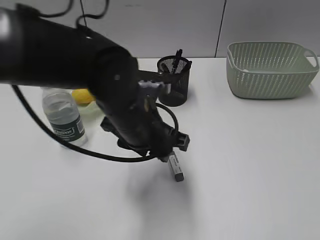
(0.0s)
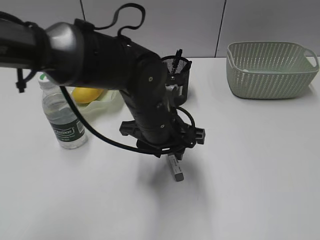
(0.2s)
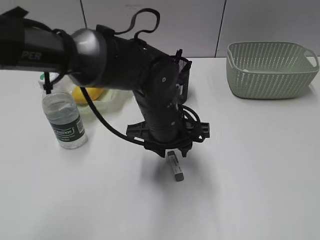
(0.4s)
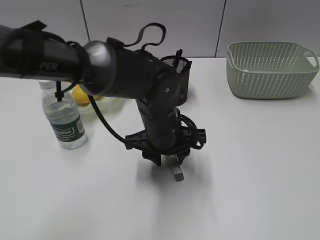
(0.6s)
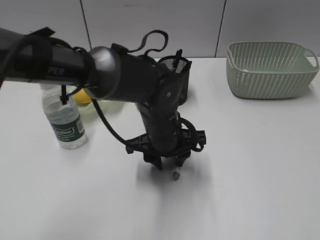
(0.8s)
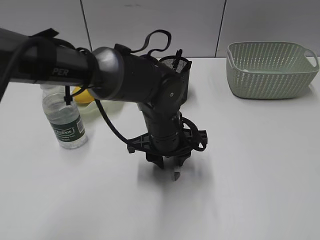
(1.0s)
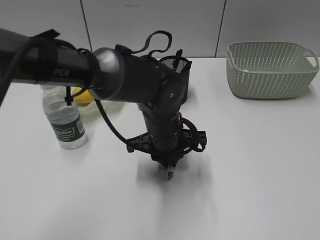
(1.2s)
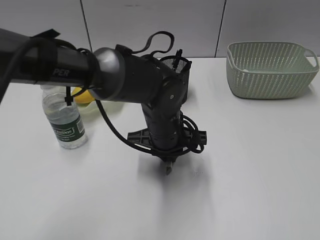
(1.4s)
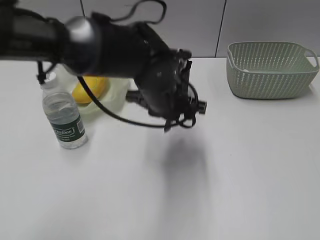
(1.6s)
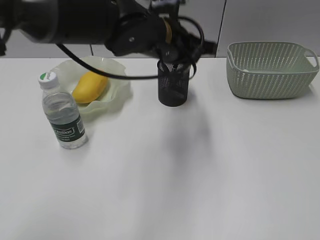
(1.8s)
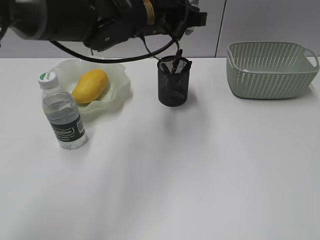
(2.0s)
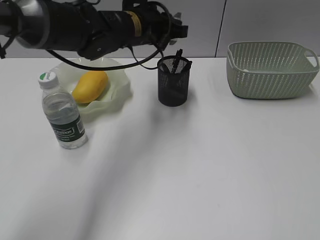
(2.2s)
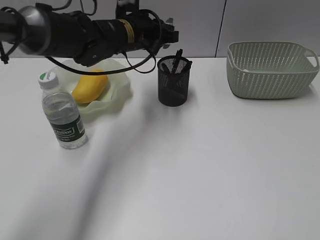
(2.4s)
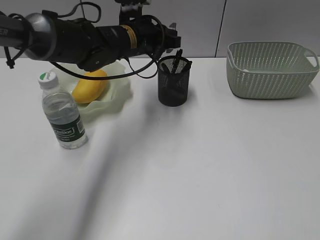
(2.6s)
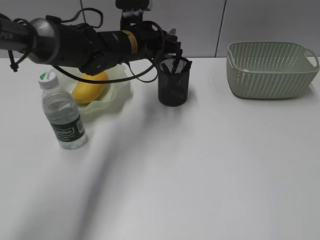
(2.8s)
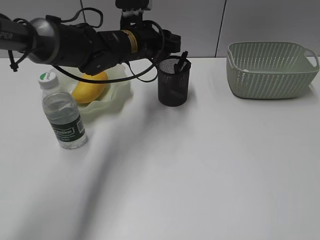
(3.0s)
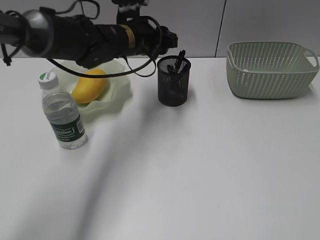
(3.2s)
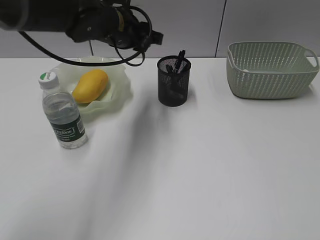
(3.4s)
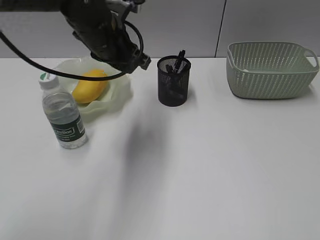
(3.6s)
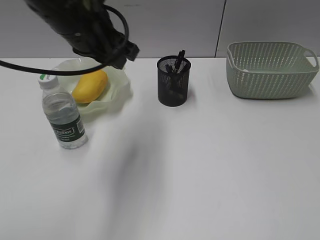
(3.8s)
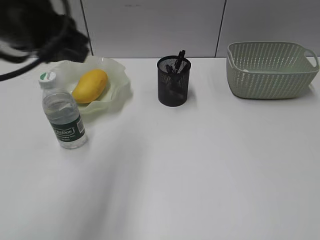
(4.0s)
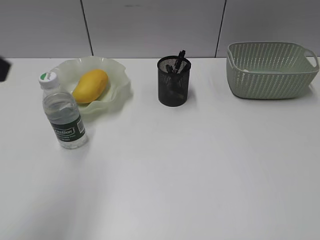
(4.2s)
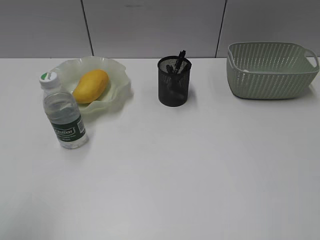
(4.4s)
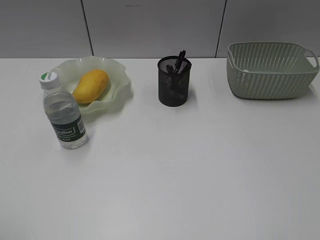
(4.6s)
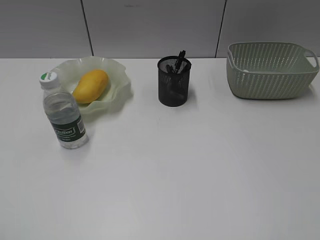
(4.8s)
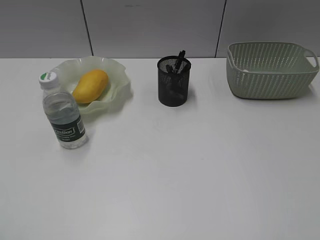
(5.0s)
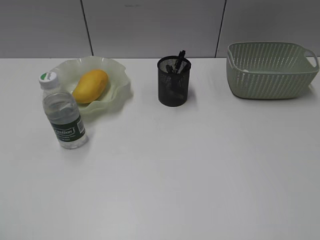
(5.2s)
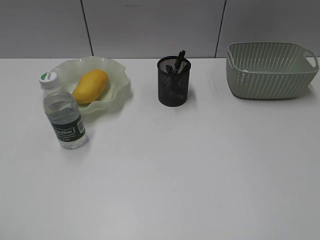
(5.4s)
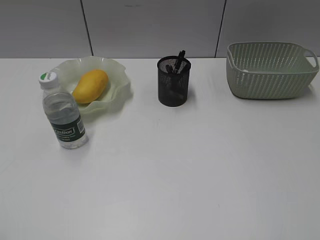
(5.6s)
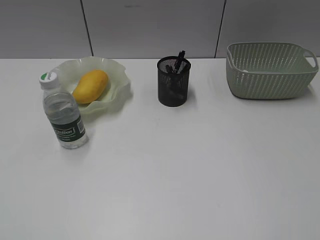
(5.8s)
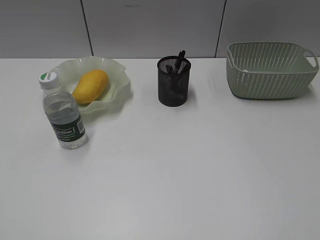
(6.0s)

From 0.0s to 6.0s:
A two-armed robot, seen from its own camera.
Step, from 1.4s to 3.0s: Place the eraser in pen holder with left gripper.
From 0.0s to 1.6s: The left gripper goes about 5 cm forward, and closes its fingers.
From 1.6s to 3.0s: The left gripper travels forward and to the left by some 15 cm, and opens its fingers.
From 3.0s to 4.4s: The left gripper shifts approximately 40 cm backward and to the left.

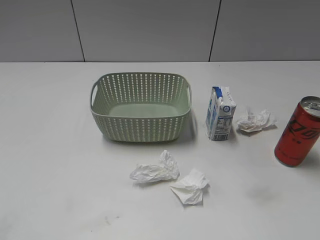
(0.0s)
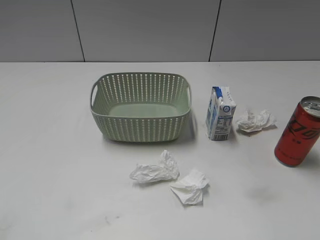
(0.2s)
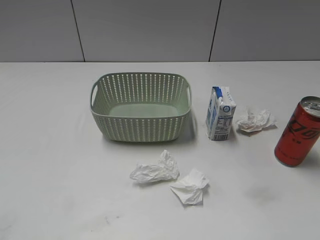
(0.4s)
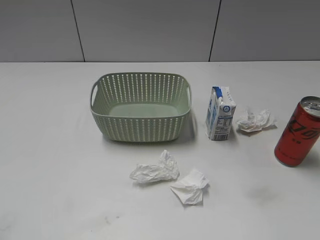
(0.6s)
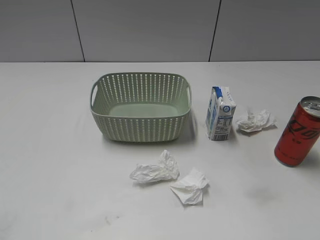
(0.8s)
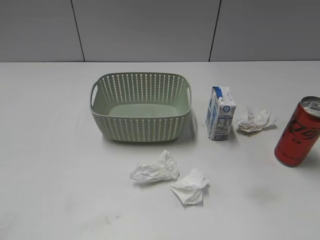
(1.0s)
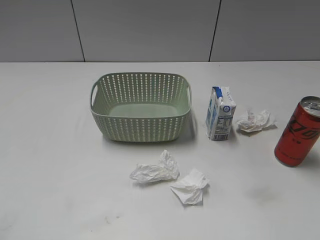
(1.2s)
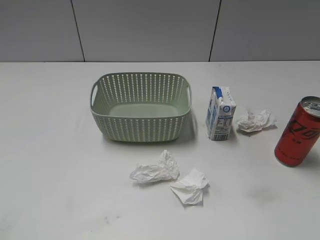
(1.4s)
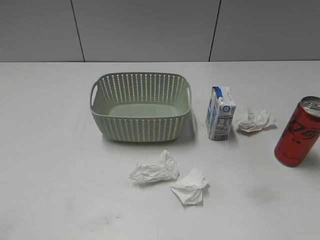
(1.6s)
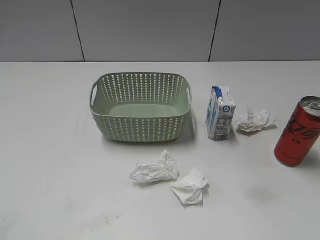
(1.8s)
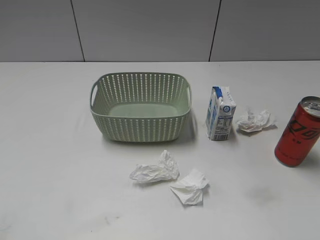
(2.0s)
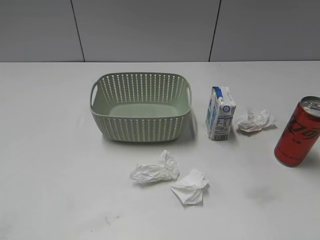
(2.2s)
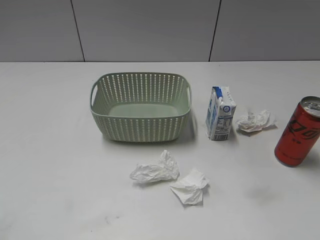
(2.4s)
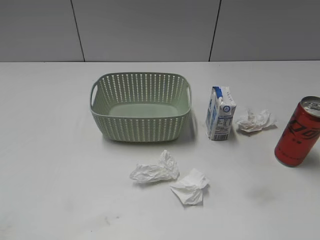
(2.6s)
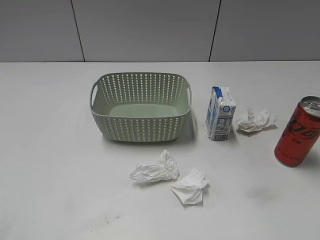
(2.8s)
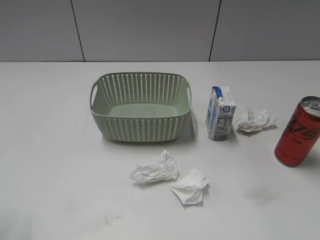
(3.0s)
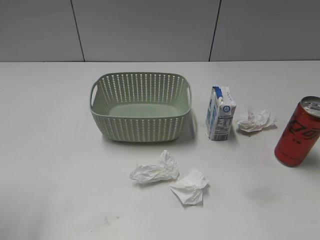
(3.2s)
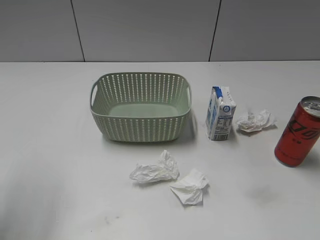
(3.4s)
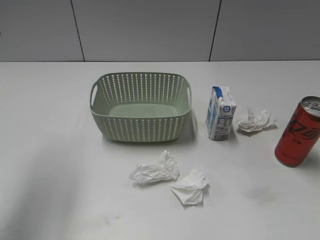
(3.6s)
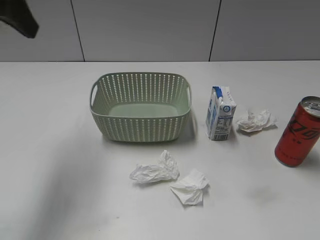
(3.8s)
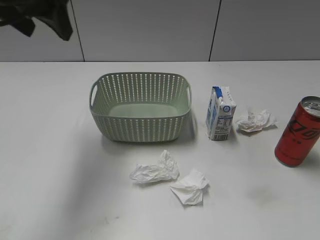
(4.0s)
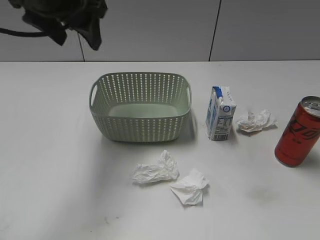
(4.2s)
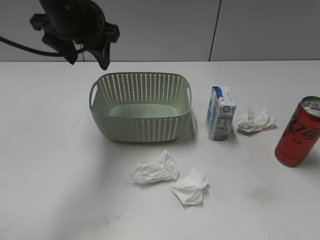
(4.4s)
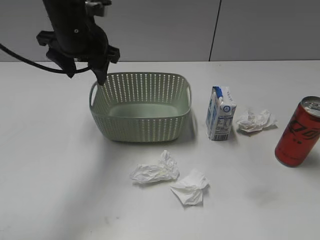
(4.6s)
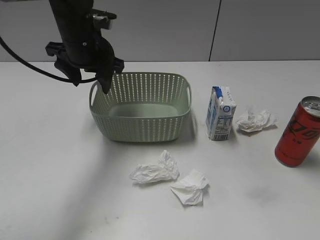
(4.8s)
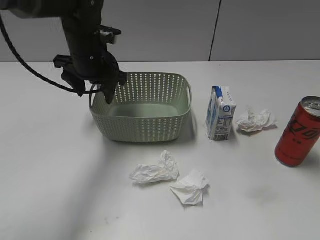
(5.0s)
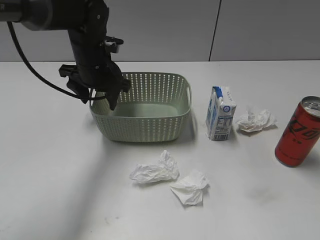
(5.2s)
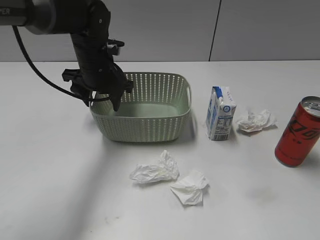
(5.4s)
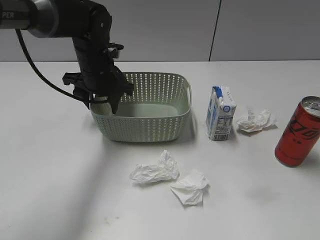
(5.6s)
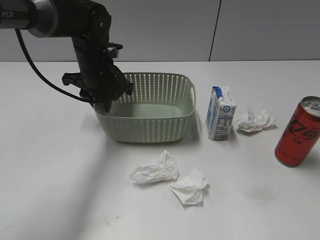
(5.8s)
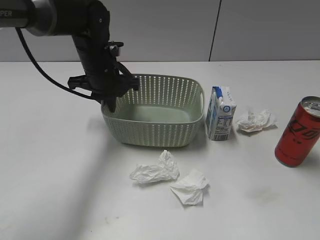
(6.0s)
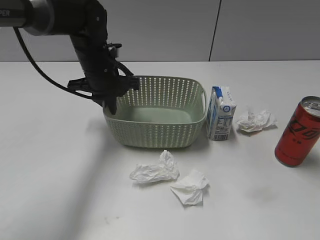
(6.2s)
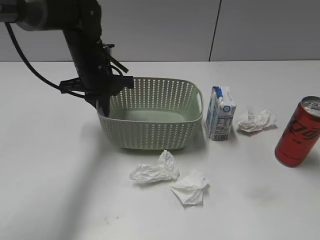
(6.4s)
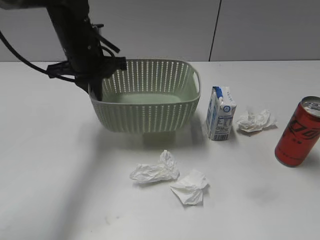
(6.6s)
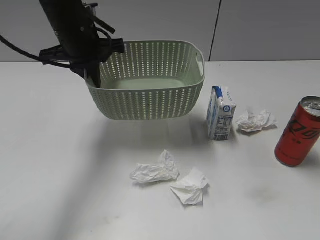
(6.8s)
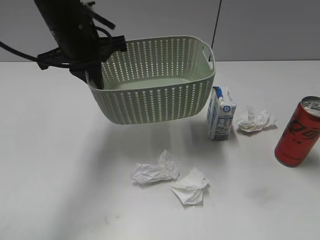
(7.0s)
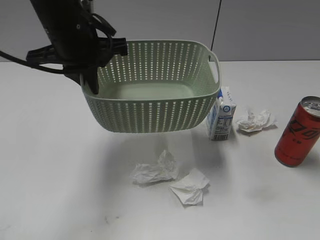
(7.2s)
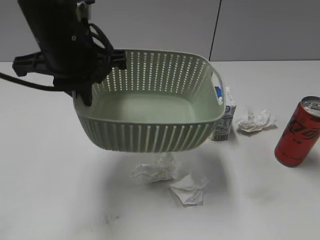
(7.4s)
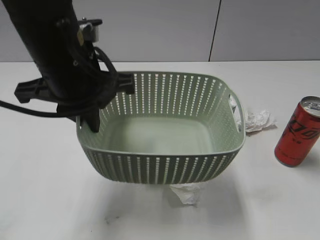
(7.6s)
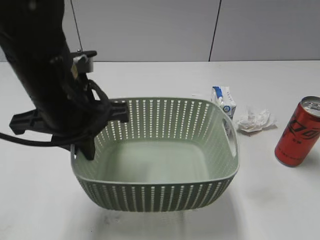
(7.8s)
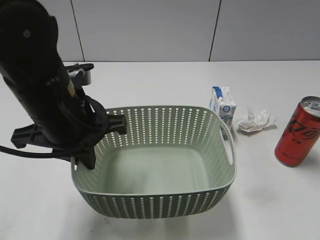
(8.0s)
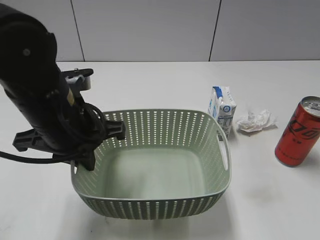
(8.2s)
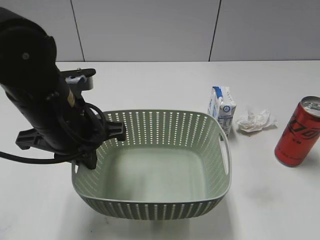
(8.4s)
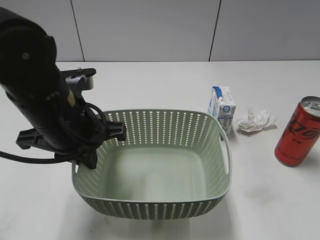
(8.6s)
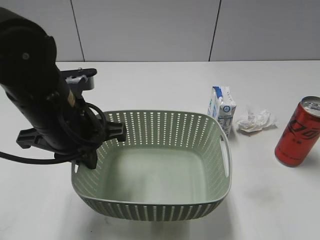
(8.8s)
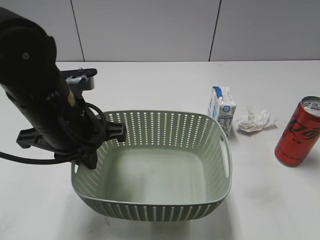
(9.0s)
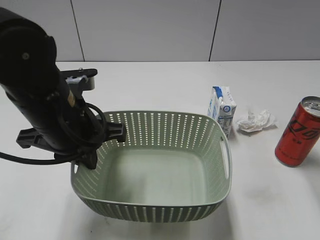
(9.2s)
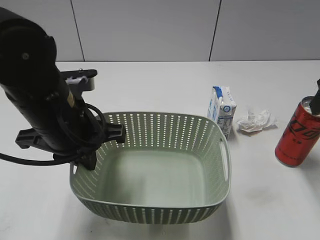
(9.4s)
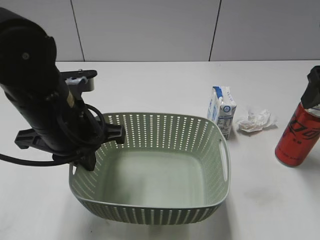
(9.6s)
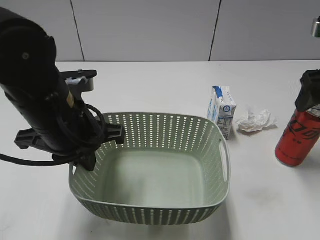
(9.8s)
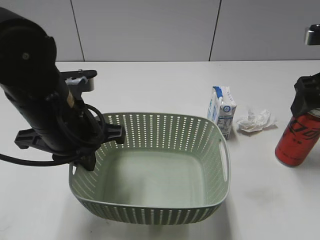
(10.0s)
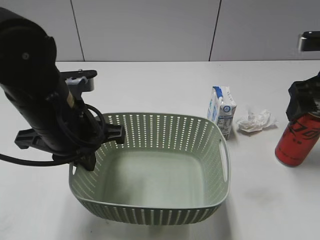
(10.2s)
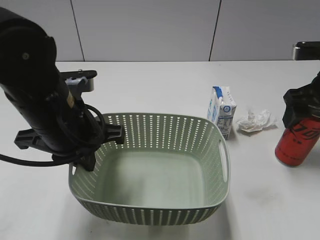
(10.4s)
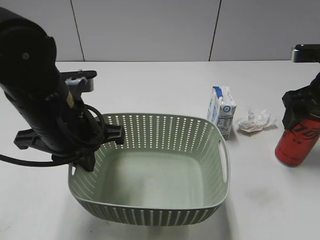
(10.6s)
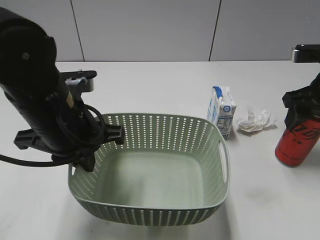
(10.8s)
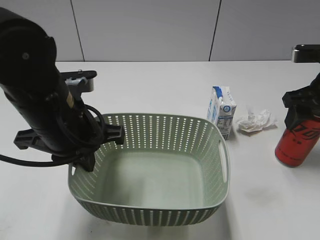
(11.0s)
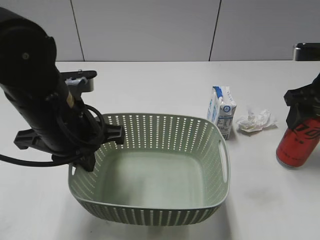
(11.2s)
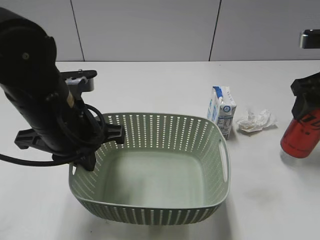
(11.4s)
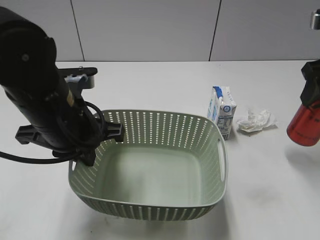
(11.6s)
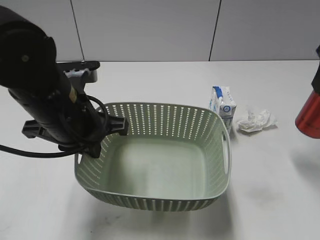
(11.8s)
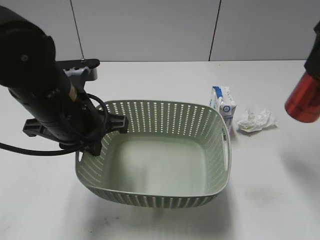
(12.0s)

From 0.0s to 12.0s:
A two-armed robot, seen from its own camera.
Step, from 3.6s to 6.0s: Grasp the basket with left gripper.
Step, from 6.2s to 9.2s: Lift the basket with left gripper.
Step, from 9.4s to 11.0s: Grasp the cola can with right gripper.
From 3.0s to 4.4s: The left gripper travels forward and to the right by some 30 cm.
From 4.4s to 6.0s: The left gripper moves downward, approximately 10 cm, and closes its fingers.
From 6.0s to 7.6s: The left gripper shifts roughly 20 cm backward and upward.
From 7.6s to 9.0s: The right gripper shifts about 15 cm forward. Meanwhile the left gripper moves downward, roughly 5 cm.
From 9.0s to 10.4s: The right gripper shifts about 15 cm forward and downward, and opens up.
From 10.4s to 12.0s: The right gripper goes some 15 cm upward, and closes its fingers.

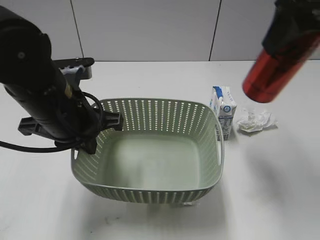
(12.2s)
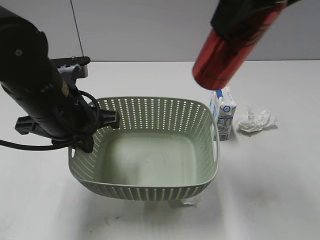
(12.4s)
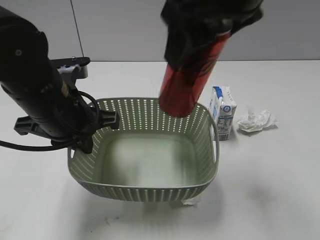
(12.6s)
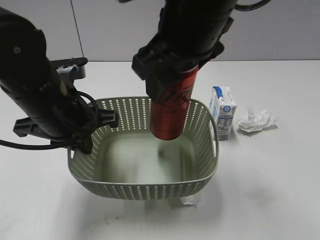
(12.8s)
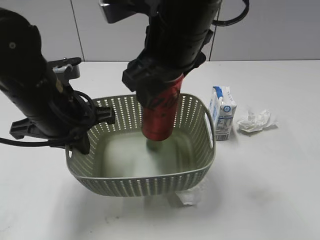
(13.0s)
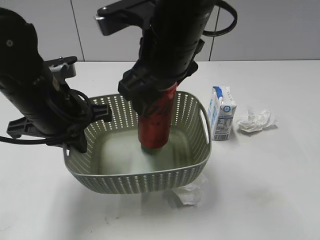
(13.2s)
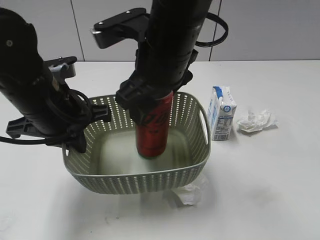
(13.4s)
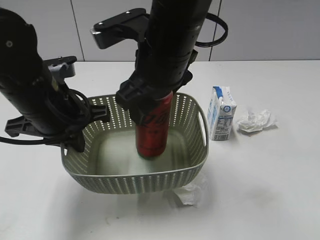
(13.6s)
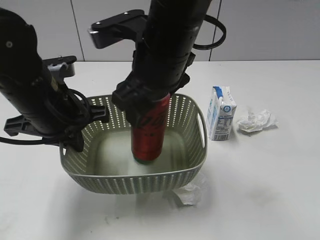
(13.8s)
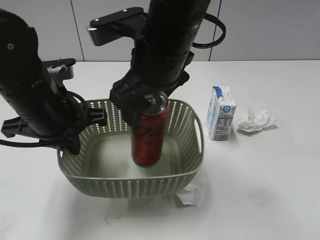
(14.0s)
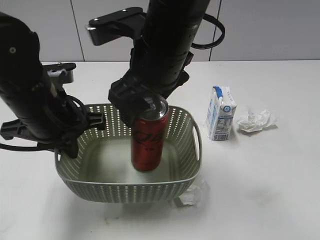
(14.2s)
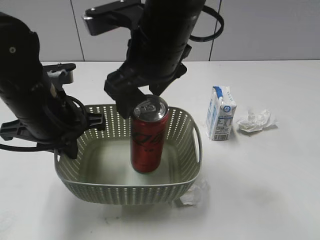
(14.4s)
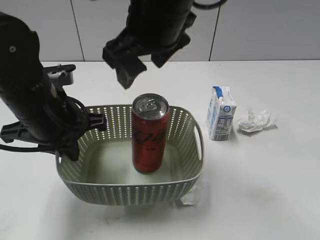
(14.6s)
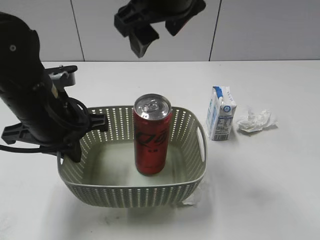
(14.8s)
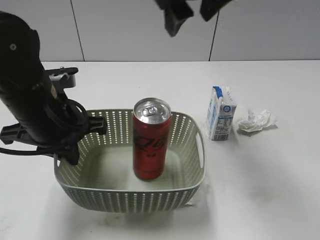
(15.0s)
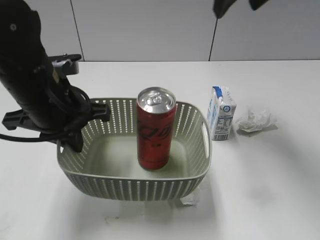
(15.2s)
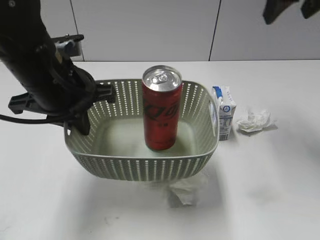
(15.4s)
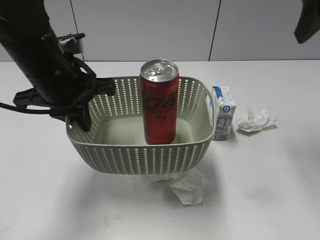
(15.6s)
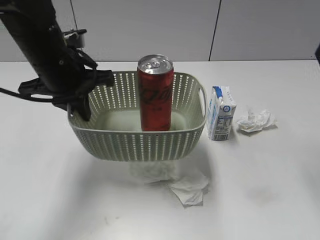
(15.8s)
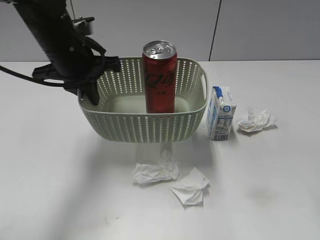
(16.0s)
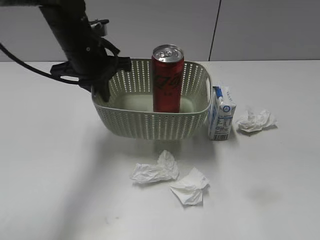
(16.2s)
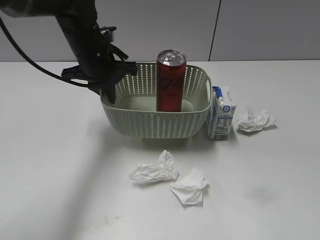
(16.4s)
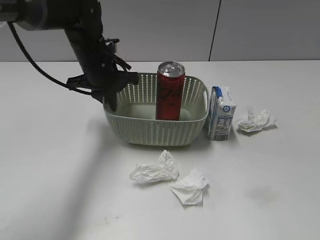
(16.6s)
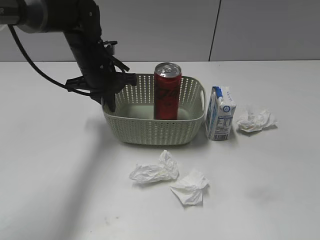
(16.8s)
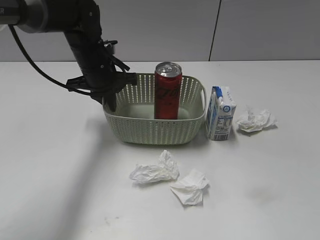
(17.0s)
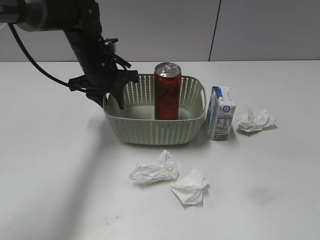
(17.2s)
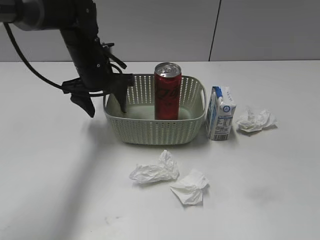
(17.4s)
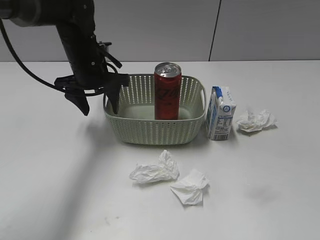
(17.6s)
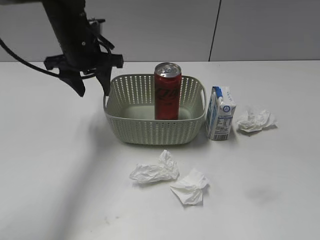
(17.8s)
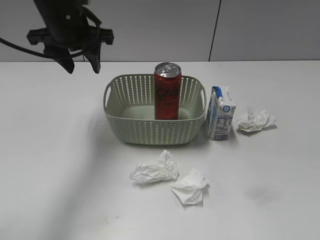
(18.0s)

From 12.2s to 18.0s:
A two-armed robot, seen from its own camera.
Step, from 12.2s to 14.0s: Place the cola can in the basket with right gripper.
Step, from 14.2s to 17.2s: Place the basket on the table with left gripper.
From 12.2s to 13.6s: The right gripper travels to the left and downward by roughly 20 cm.
From 13.6s to 15.0s: The right gripper goes about 15 cm upward, to the right and forward, and opens.
From 15.0s to 16.6s: The right gripper moves backward and to the right, some 40 cm; the left gripper goes roughly 15 cm forward.
From 16.6s to 18.0s: The left gripper heads upward, covering roughly 10 cm, and opens up. The right gripper travels downward by about 5 cm.
